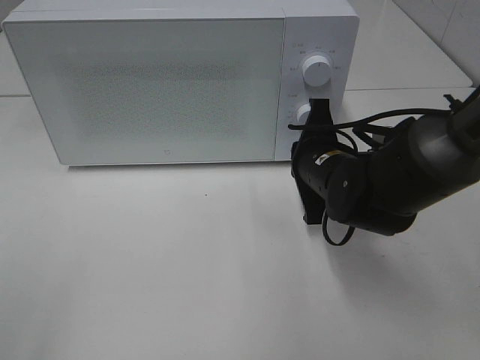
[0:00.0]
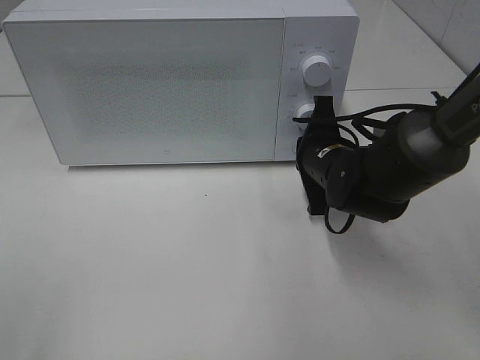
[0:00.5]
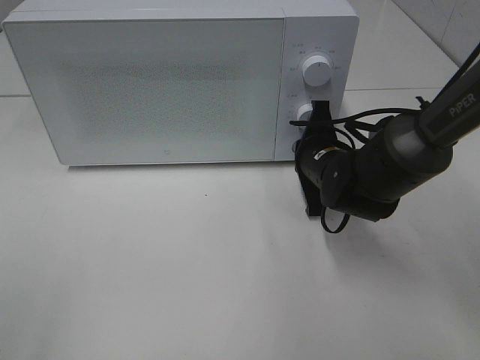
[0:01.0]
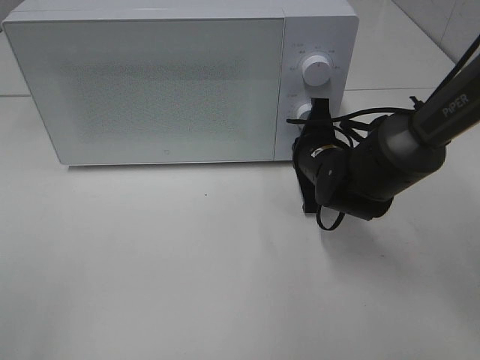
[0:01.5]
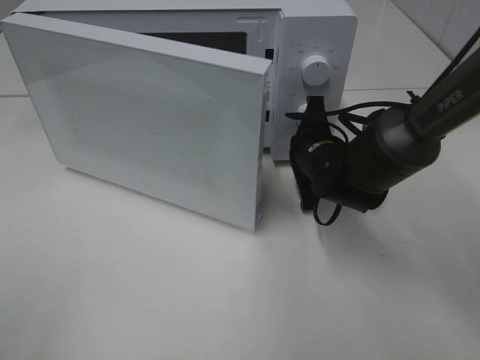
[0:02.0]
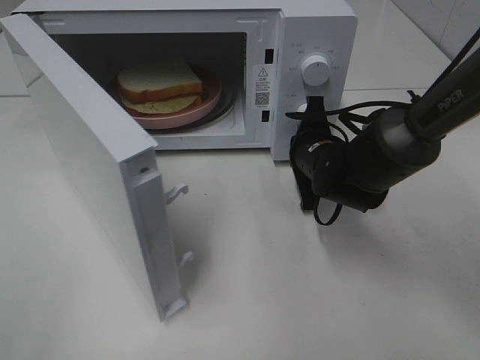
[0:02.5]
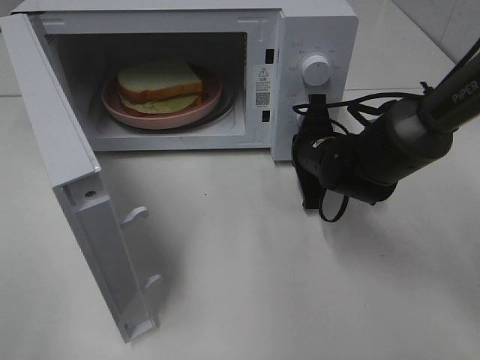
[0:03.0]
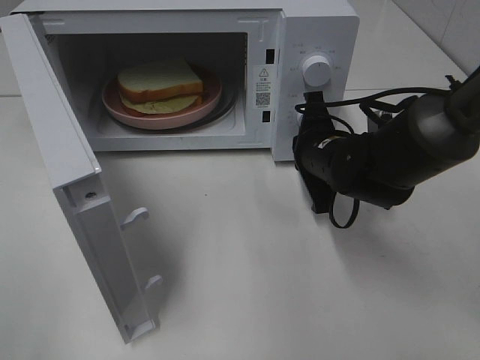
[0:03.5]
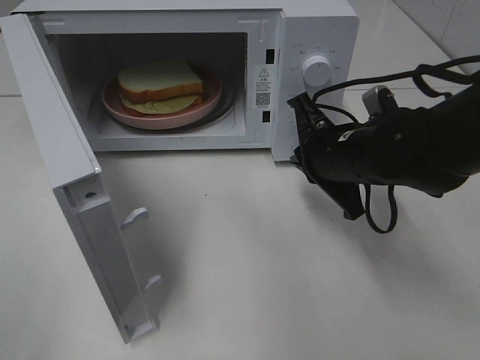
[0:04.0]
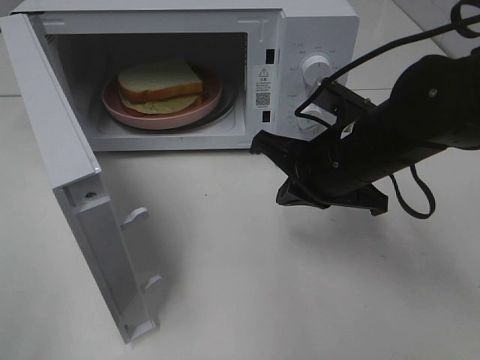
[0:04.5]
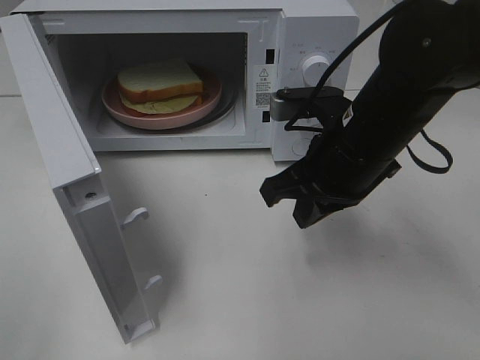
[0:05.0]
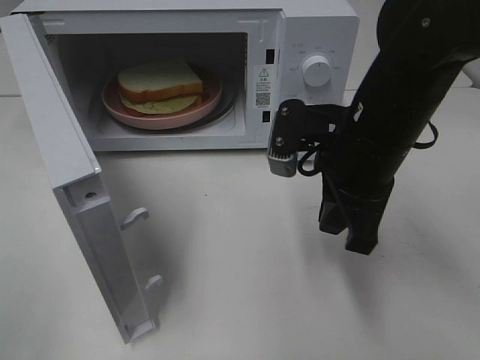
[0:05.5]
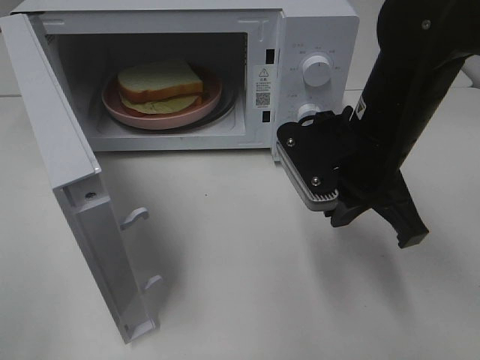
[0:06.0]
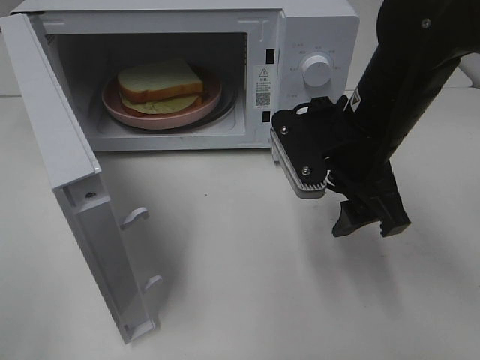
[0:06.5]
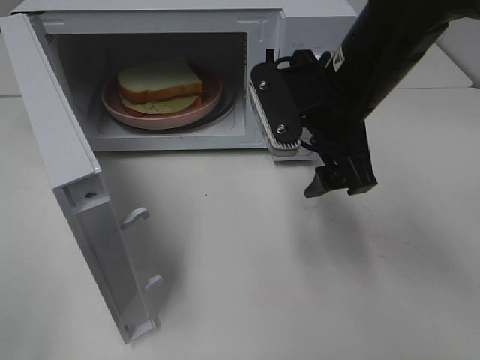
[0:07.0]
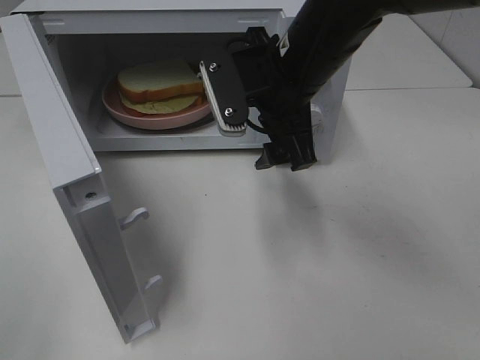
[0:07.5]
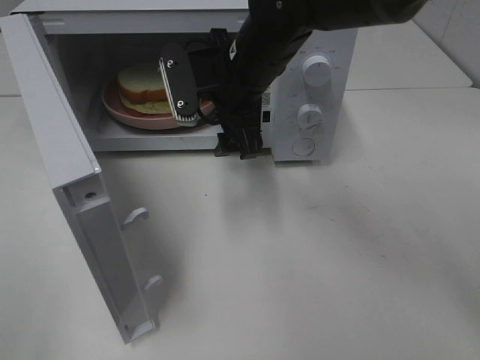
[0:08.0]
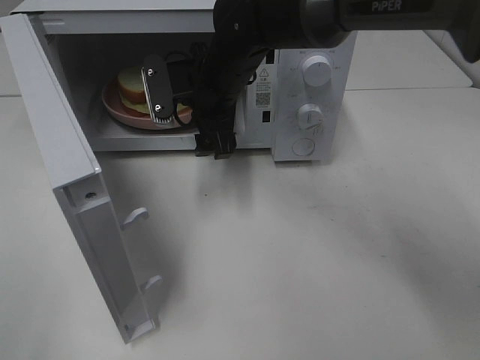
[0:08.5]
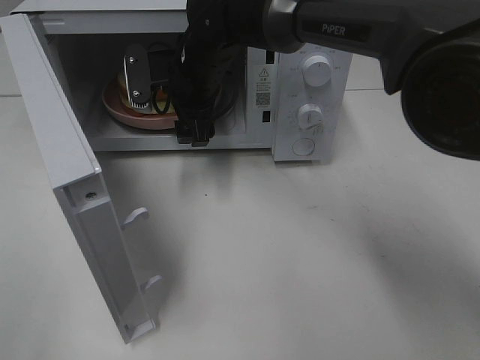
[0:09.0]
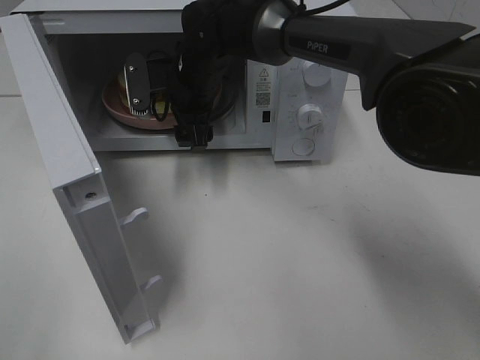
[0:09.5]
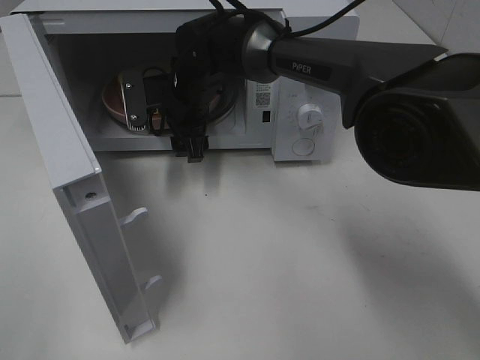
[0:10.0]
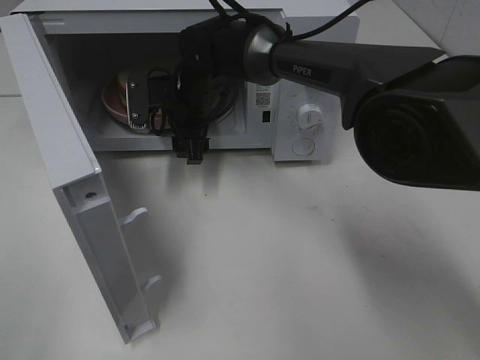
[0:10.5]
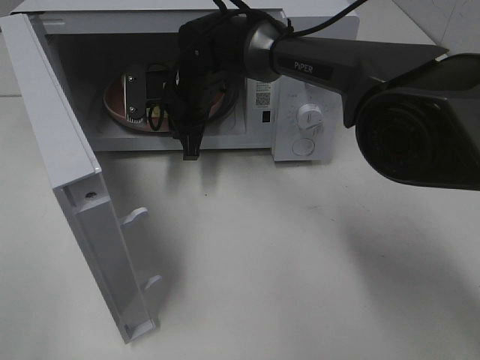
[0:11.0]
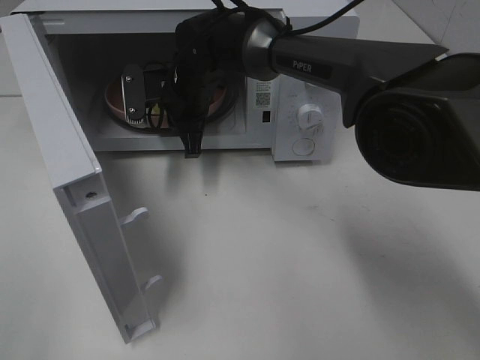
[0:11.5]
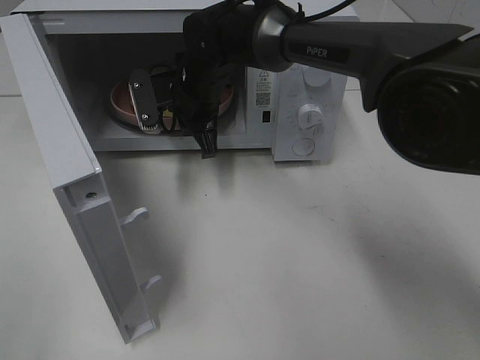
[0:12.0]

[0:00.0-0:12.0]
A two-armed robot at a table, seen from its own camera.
Task of the whole recording: Heat Sandwich.
Step, 0:00.0 to 0:04.0: Right hand: press the switch.
Step, 0:04.5 to 0:11.0: Right hand: grab the plate with the sandwich.
0:00.0 to 0:02.0: The right gripper heads forward, covering roughly 5 cm.
0:02.0 to 0:04.0: The right gripper travels backward and upward by about 10 cm.
0:04.0 to 0:06.0: The right gripper moves upward, some 5 cm.
0:06.0 to 0:08.0: The right gripper heads to the left and forward, covering roughly 15 cm, and opens up.
0:08.0 to 0:10.0: The right gripper travels forward, downward and to the left by some 10 cm.
0:10.0 to 0:12.0: The right gripper closes its fingers.

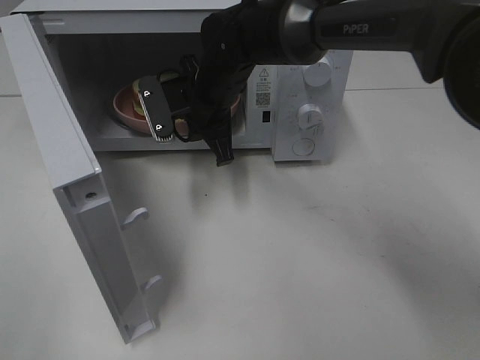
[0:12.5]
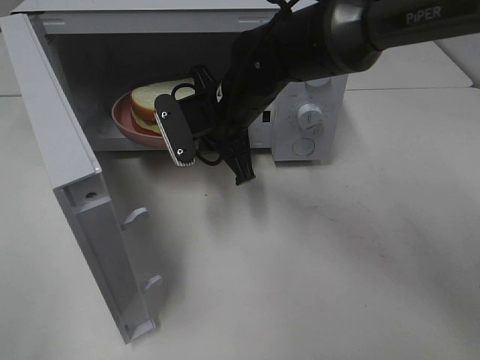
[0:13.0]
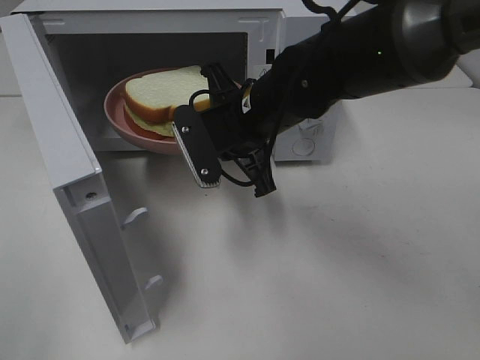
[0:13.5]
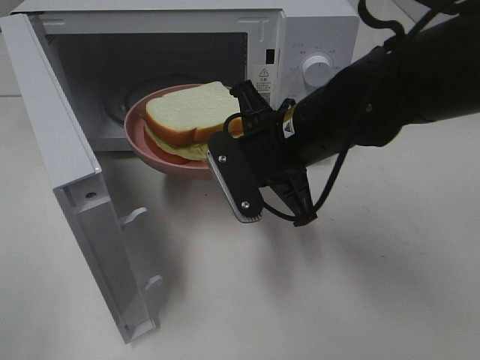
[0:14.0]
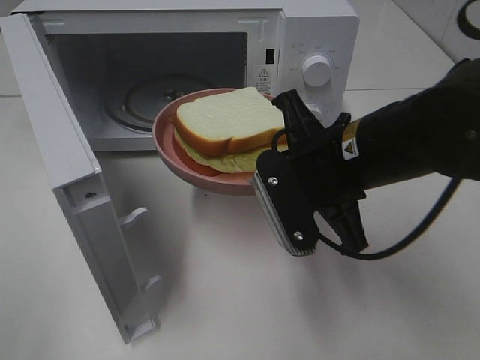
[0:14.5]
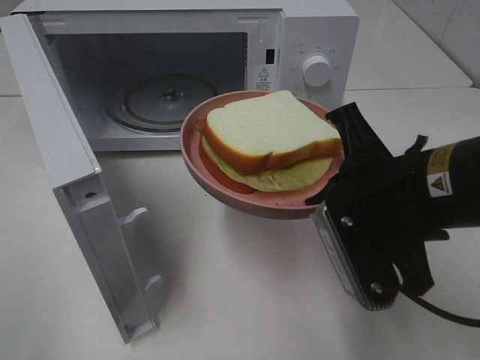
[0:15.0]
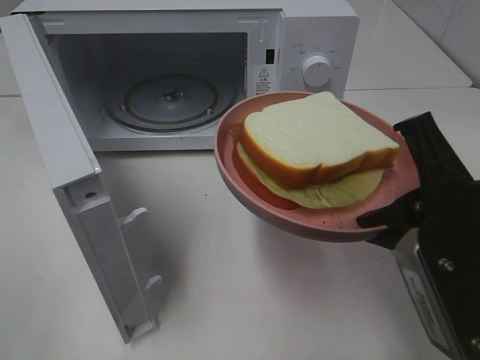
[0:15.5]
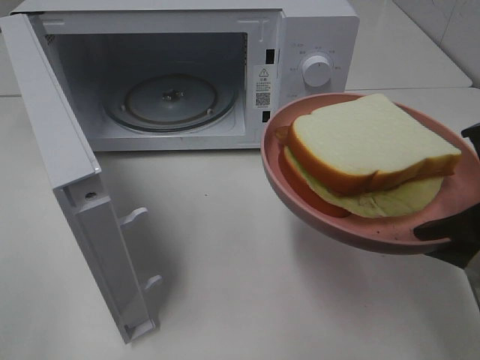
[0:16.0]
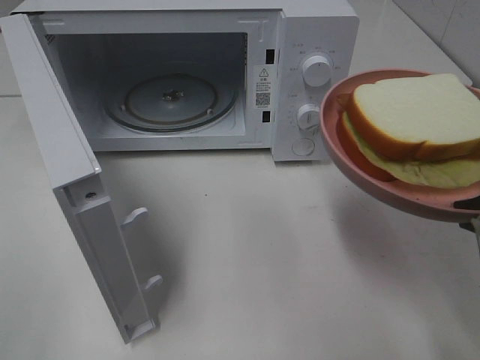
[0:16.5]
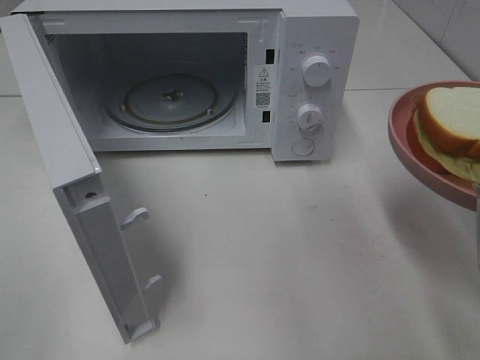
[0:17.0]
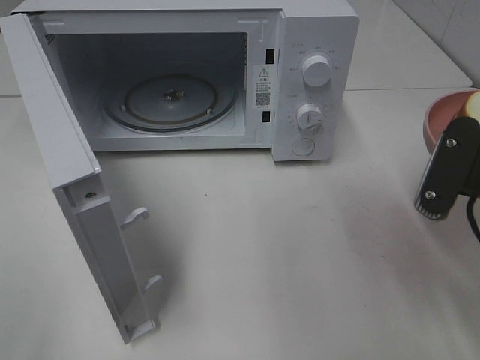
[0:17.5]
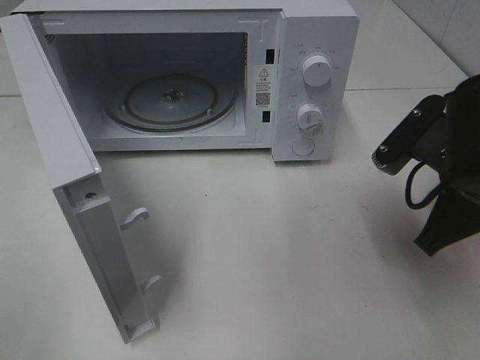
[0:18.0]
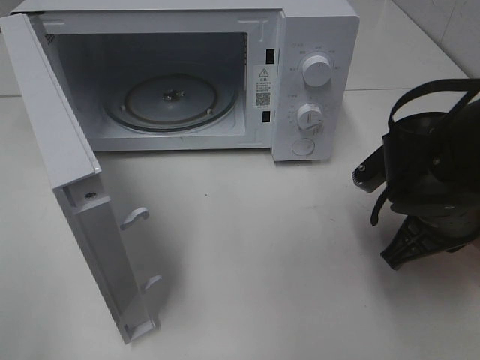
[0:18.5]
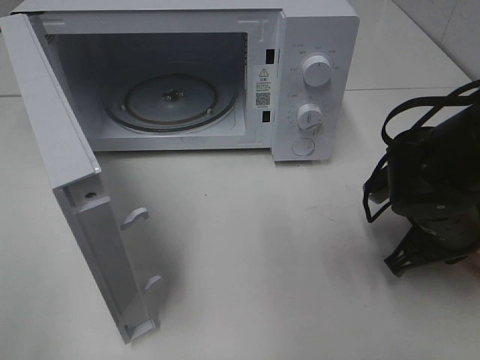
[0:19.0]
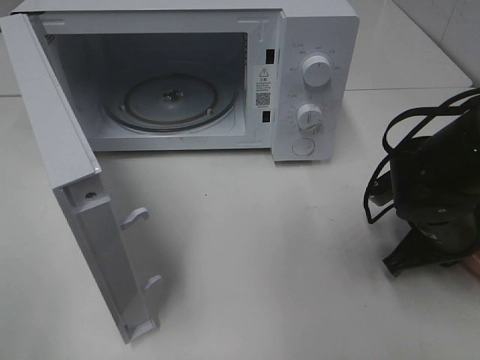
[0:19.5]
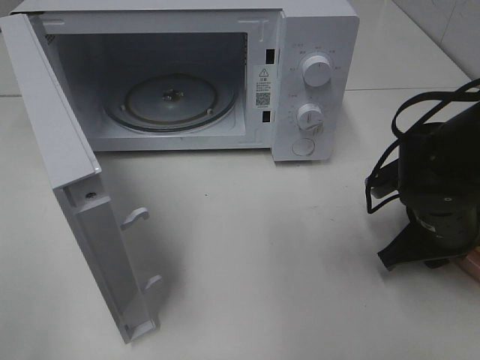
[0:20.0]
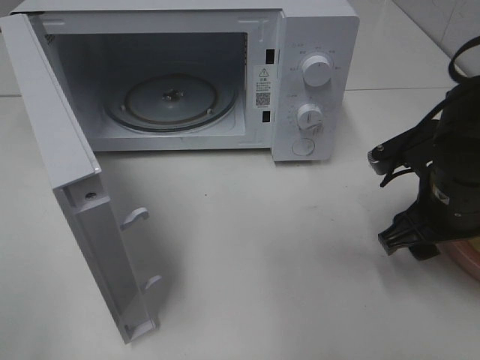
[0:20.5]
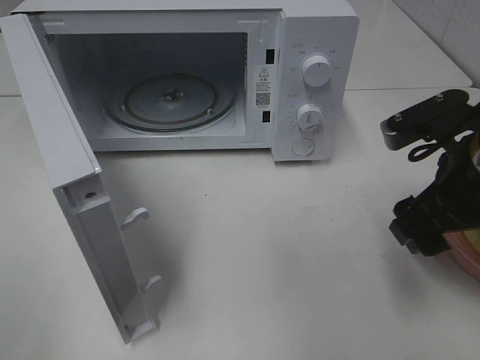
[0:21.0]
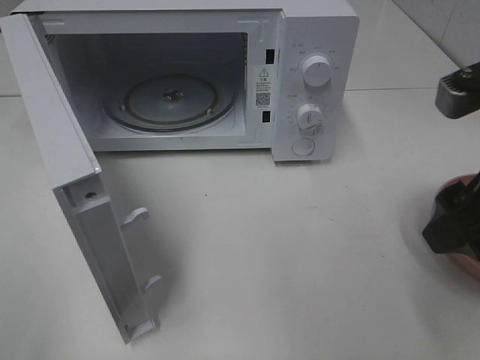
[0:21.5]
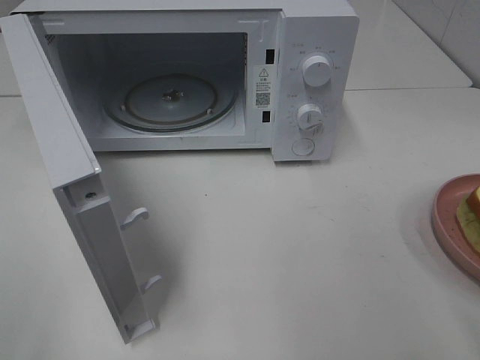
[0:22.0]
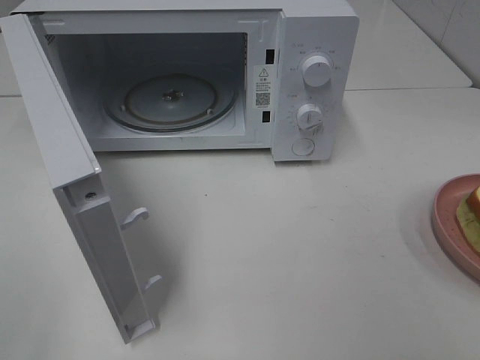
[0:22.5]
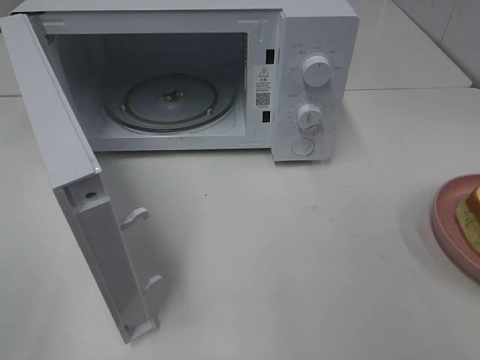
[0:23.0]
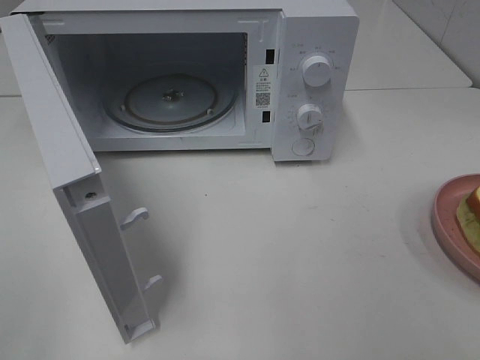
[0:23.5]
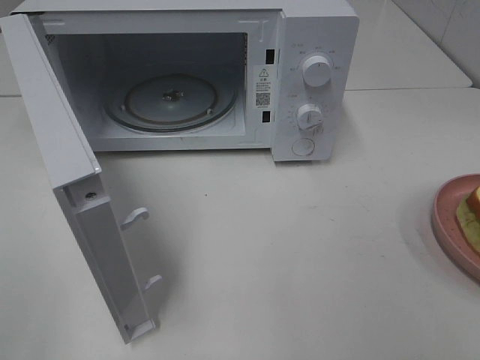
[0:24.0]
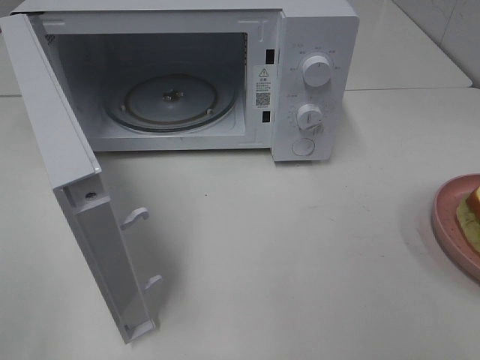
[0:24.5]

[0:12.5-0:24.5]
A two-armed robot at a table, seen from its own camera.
Task of the whole recording: Heat Sandwich.
Step, 0:12.5 to 0:21.0: Right hand: place the plate on the table.
0:12.5 to 0:14.5: The right gripper goes some 20 cm backward and to the right.
0:14.5 to 0:16.5: The right gripper heads to the right and backward, covering about 15 cm.
0:16.5 to 0:18.5: The right gripper travels forward and downward by about 15 cm.
0:18.5 to 0:20.5: The right gripper opens its fingers.
0:20.5 to 0:22.5: The right gripper heads backward and upward, covering approximately 25 cm.

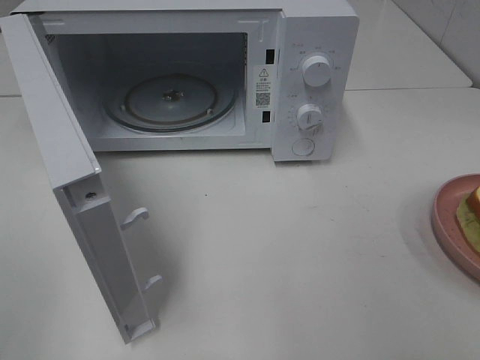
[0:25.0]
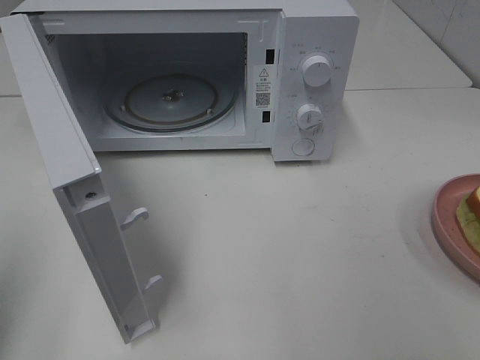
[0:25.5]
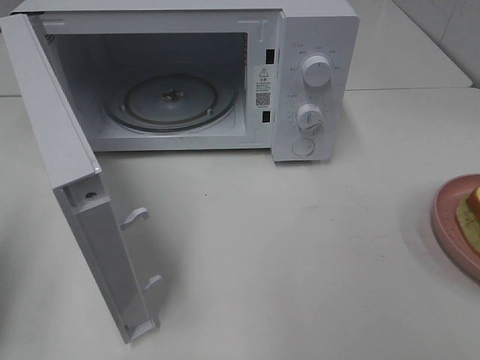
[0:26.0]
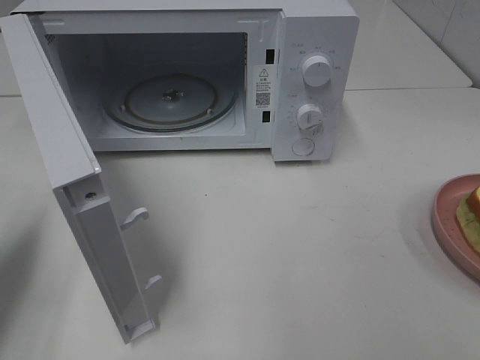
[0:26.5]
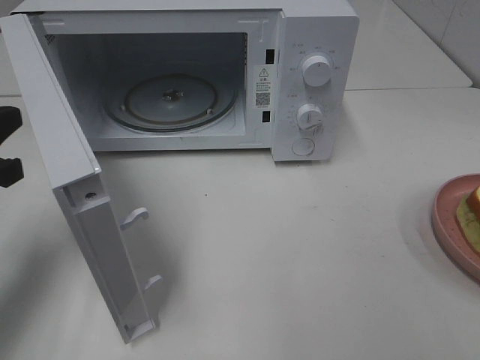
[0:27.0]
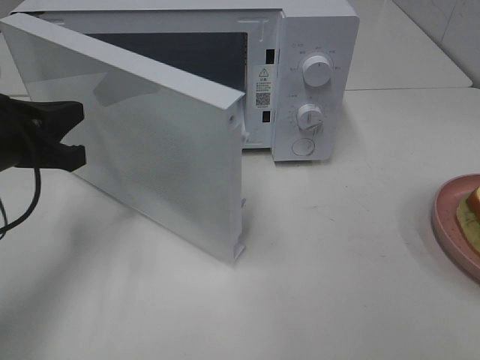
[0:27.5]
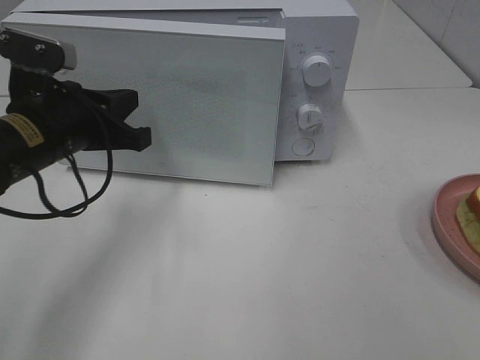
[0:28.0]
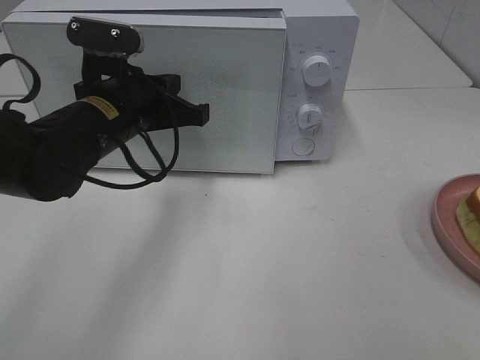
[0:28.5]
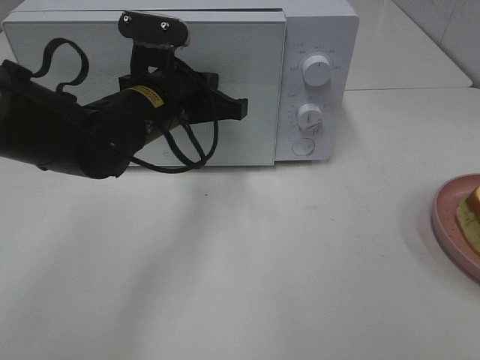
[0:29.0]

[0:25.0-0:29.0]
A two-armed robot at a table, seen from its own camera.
Task of the whole recording: Heat Sandwich.
0:25.0 to 0:27.0: The left gripper goes approximately 25 cm forward and downward, and closes its fingers.
0:27.0 to 0:29.0: The left gripper shifts some 20 cm to the right and forward.
